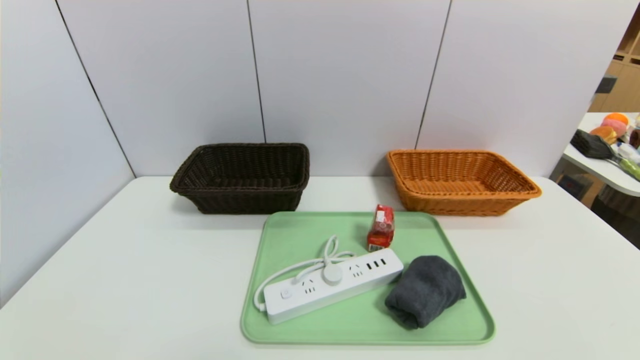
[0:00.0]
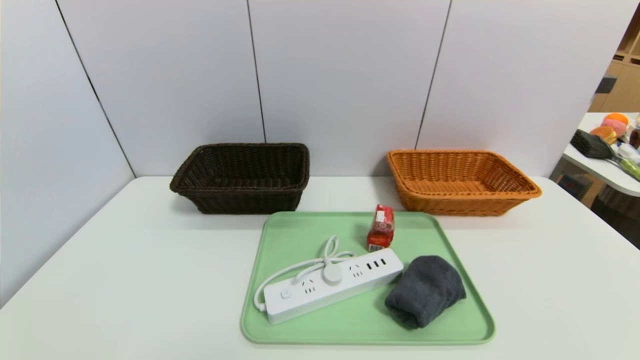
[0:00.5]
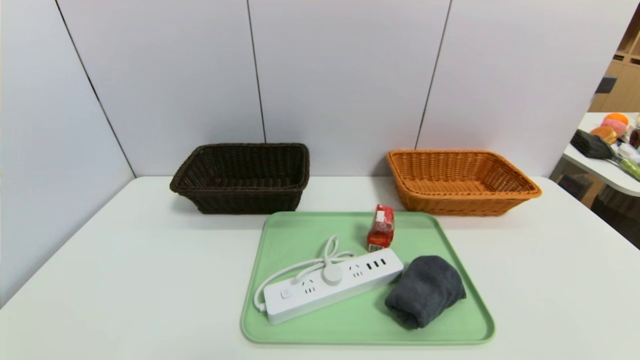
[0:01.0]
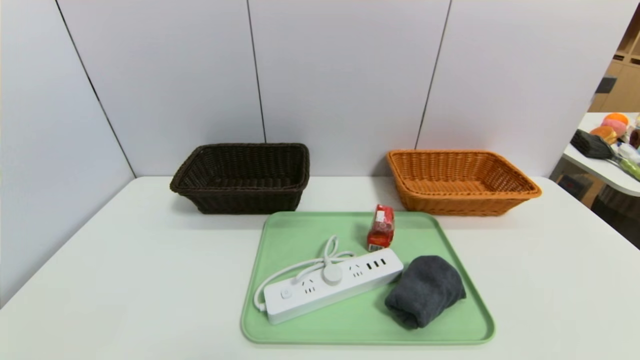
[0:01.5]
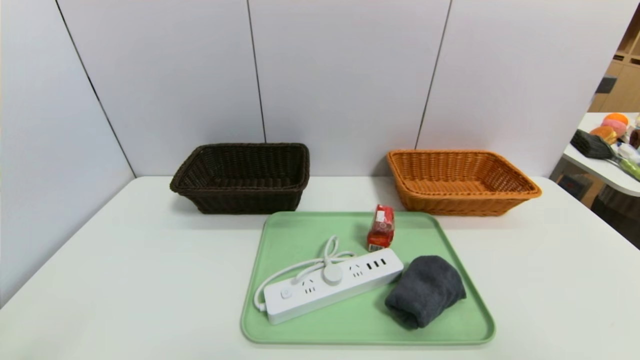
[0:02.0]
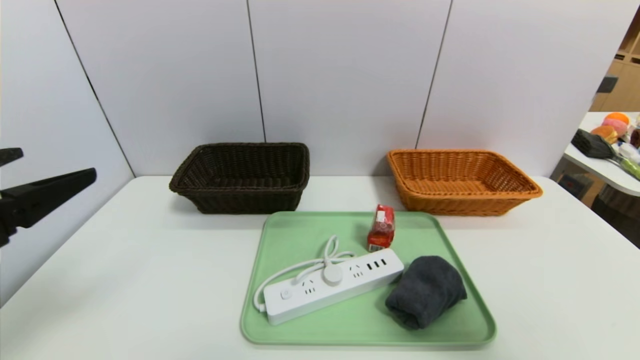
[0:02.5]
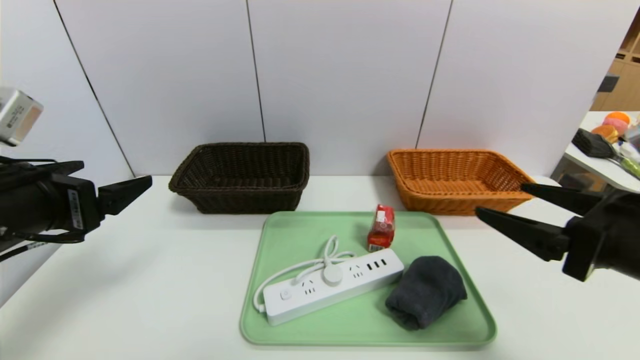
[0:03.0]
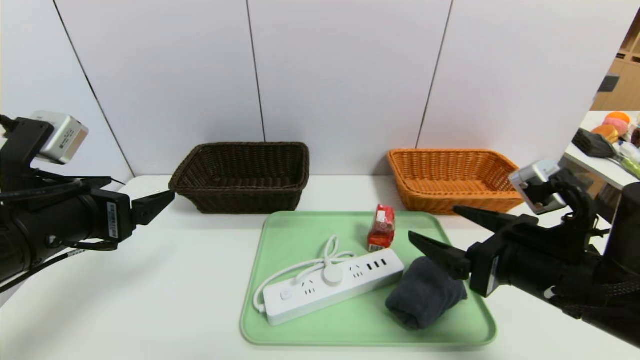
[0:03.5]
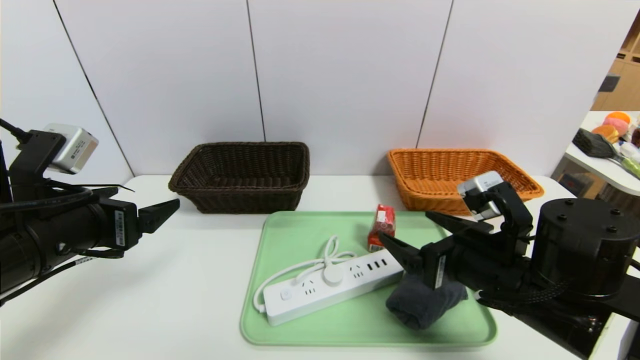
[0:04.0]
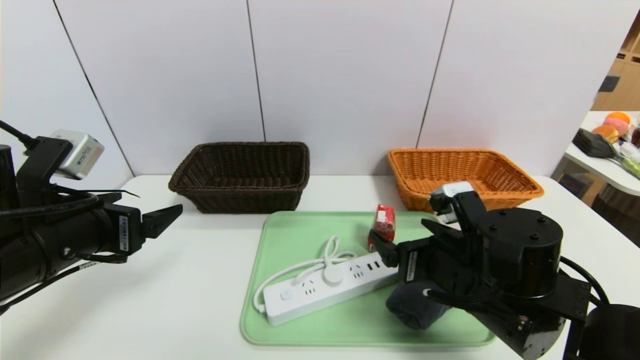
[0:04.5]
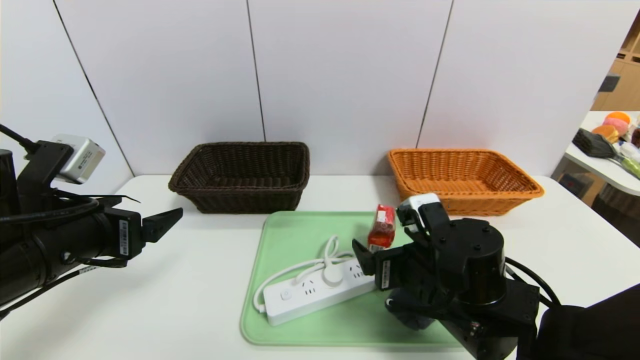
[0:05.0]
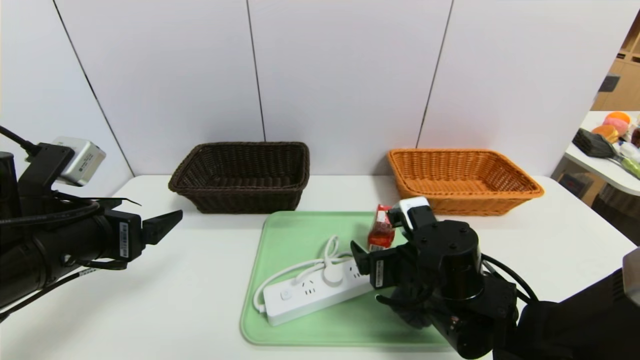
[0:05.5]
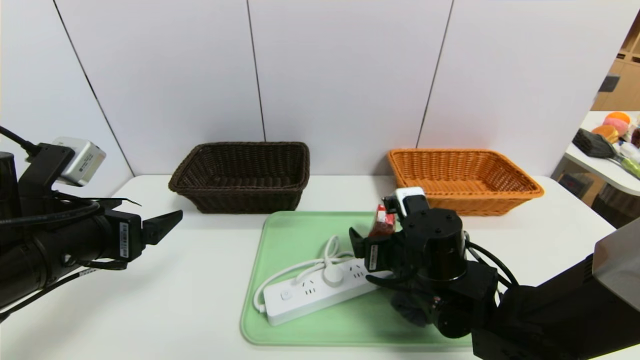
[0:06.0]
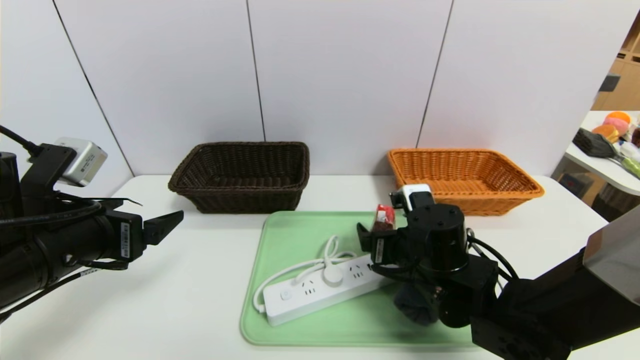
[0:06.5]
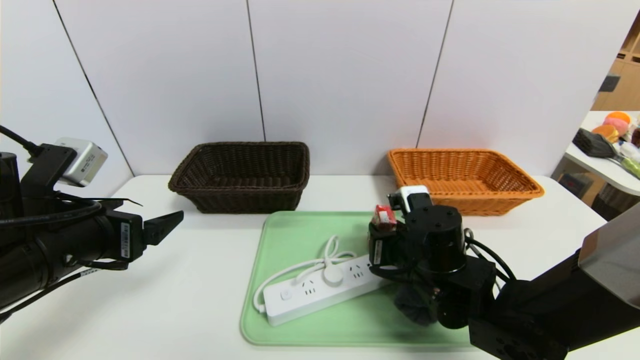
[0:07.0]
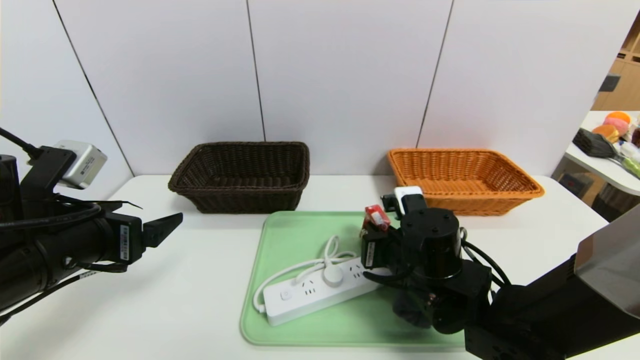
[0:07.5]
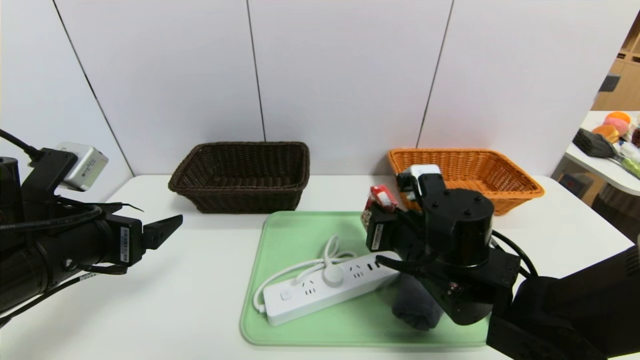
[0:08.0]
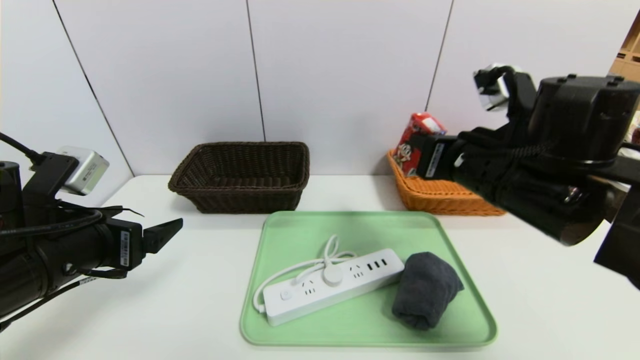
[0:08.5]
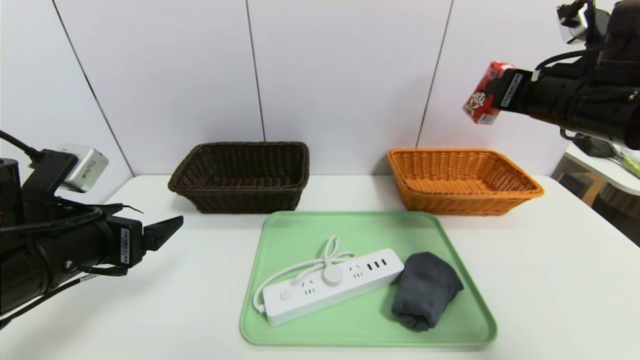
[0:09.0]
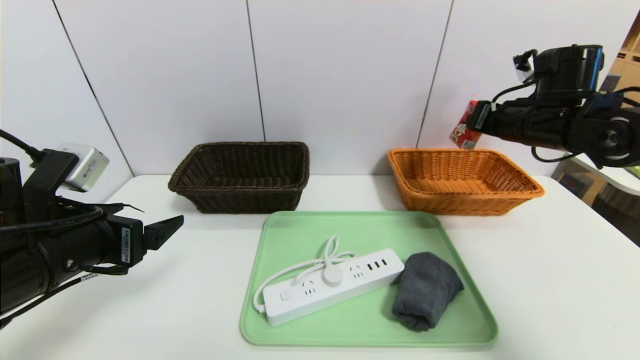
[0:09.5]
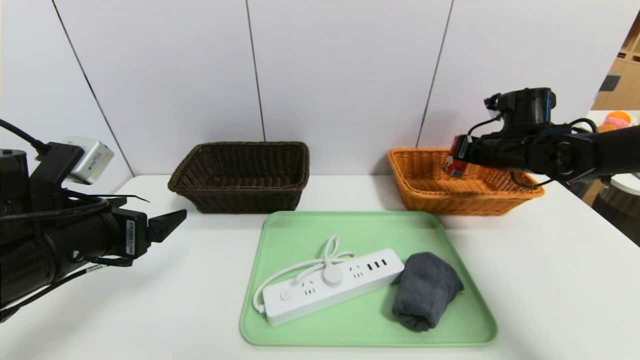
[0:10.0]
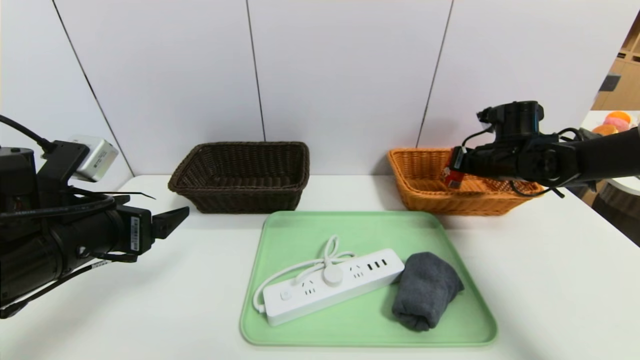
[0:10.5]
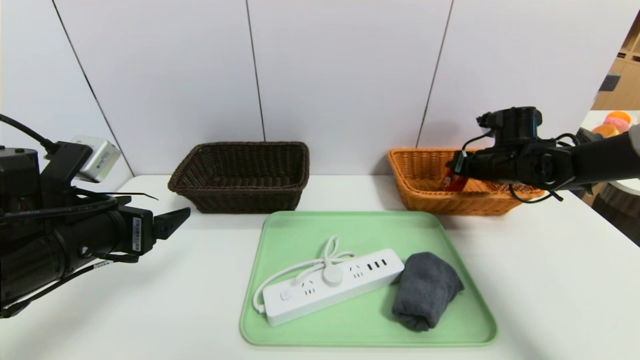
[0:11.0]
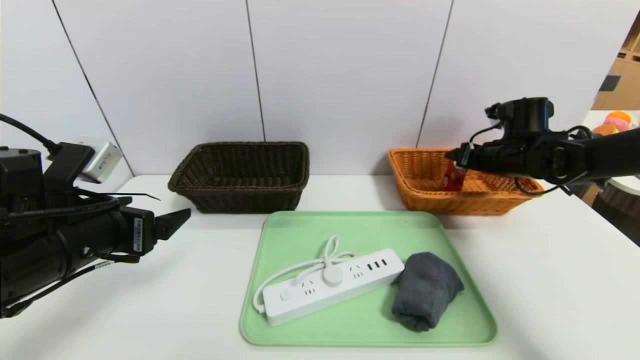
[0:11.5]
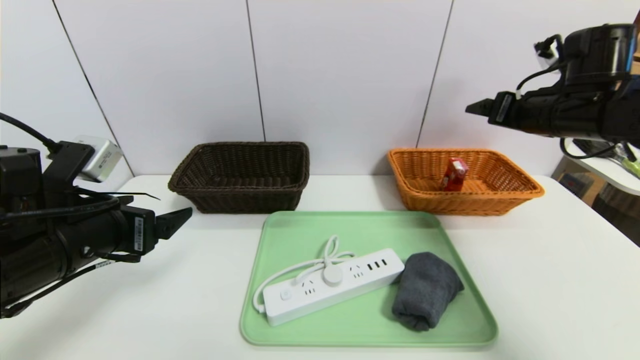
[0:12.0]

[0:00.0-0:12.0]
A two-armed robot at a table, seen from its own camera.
Task of the whole recording: place the food in the right basket with the right gripper, and place the non food items in the left basket with the left gripper.
Step, 0:00.0 to 0:11.5: Grasp the milk and put it in the right basket.
0:02.0 to 0:04.0: The right gripper moves forward, downward and to the left, approximately 30 cm. Meanwhile the left gripper shifts some 20 cm forward.
0:04.0 to 0:06.0: The right gripper travels to the left, forward and downward by about 10 cm.
0:06.0 to 0:08.0: The right gripper closes.
0:08.0 to 0:10.0: The right gripper moves to the right and forward, about 25 cm.
0:10.0 to 0:12.0: The right gripper is displaced upward and backward by approximately 10 cm, and opens.

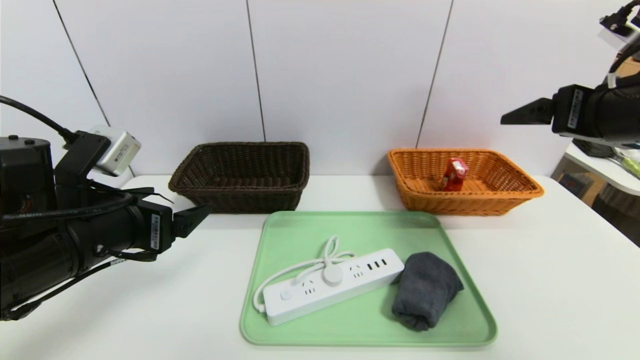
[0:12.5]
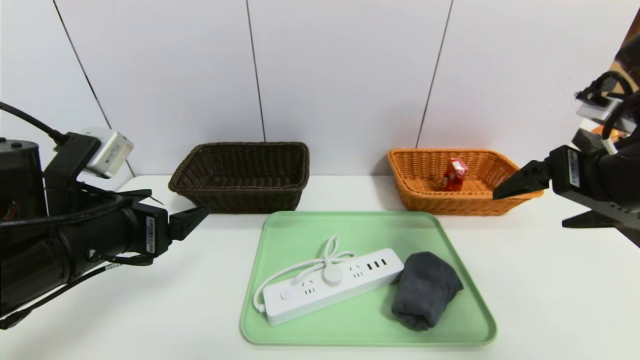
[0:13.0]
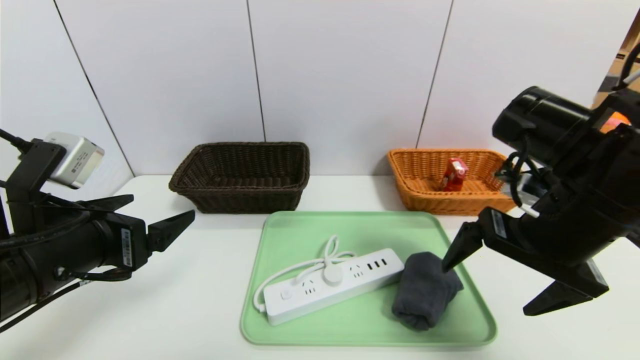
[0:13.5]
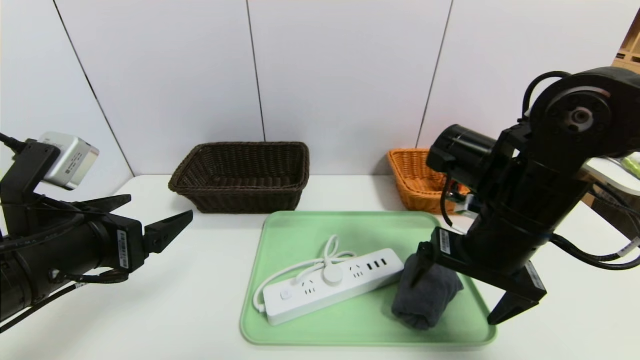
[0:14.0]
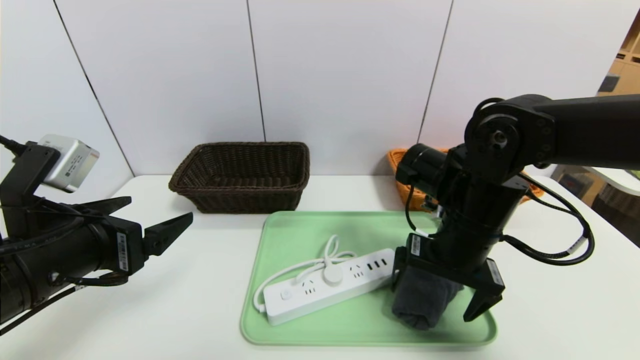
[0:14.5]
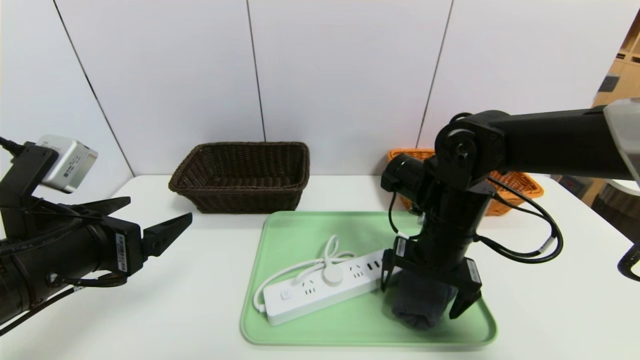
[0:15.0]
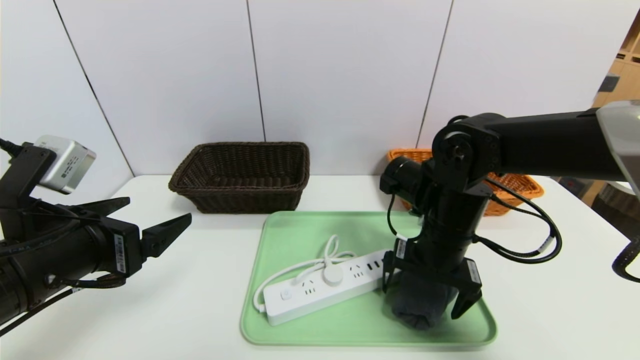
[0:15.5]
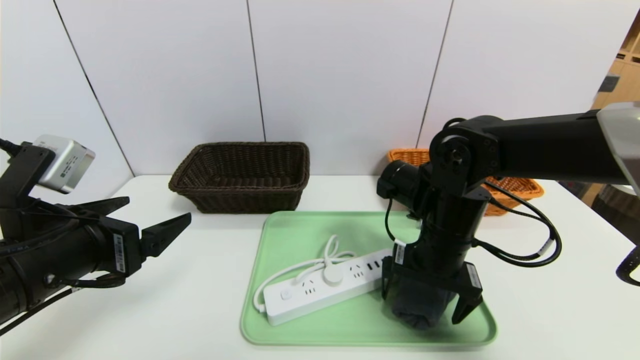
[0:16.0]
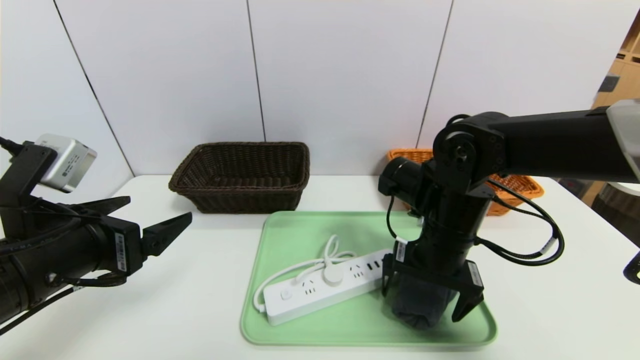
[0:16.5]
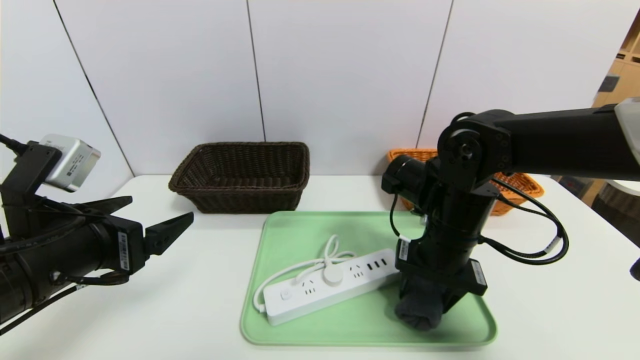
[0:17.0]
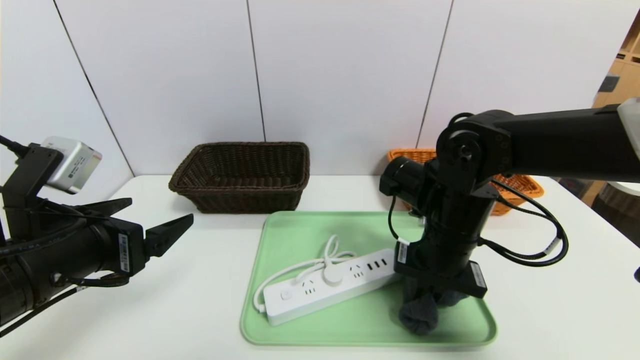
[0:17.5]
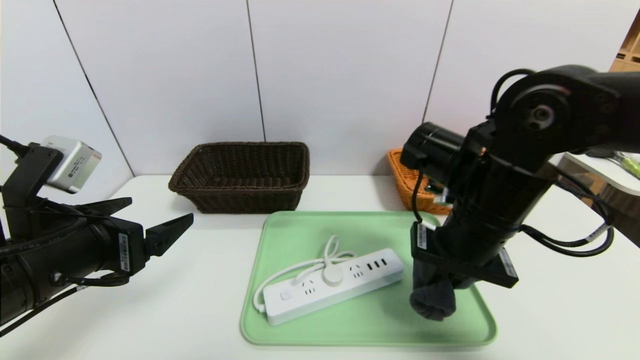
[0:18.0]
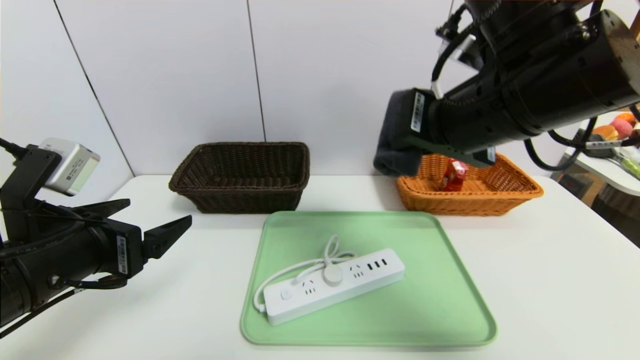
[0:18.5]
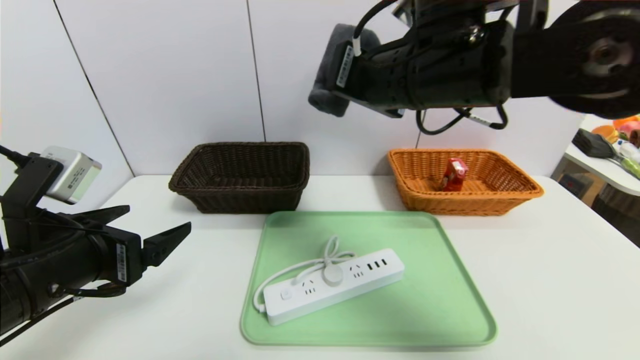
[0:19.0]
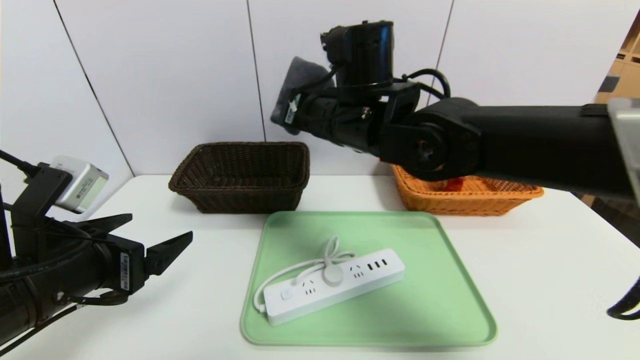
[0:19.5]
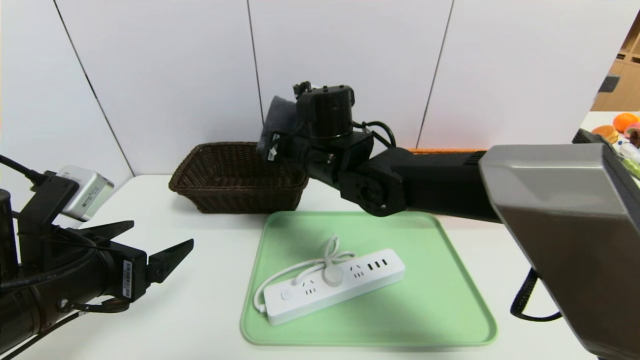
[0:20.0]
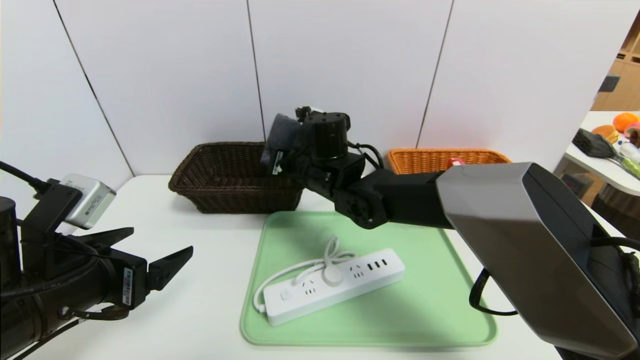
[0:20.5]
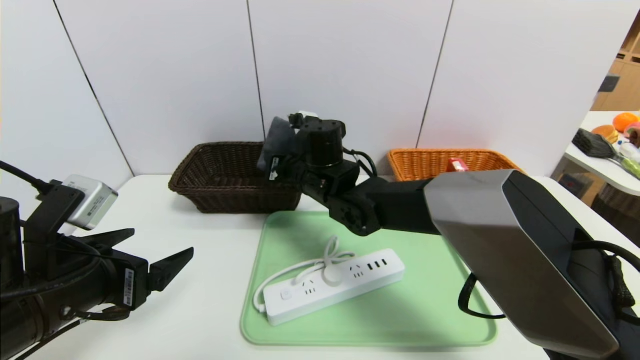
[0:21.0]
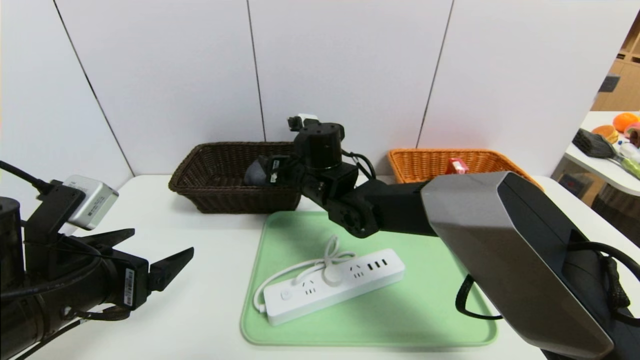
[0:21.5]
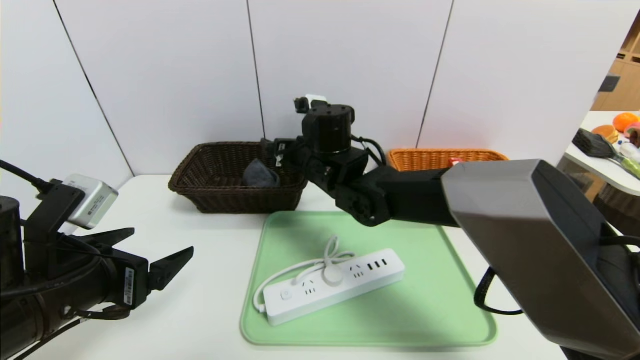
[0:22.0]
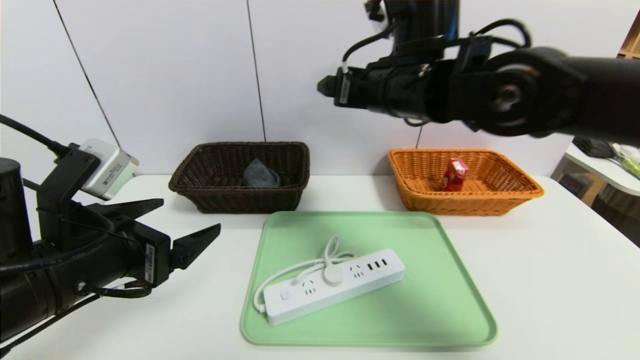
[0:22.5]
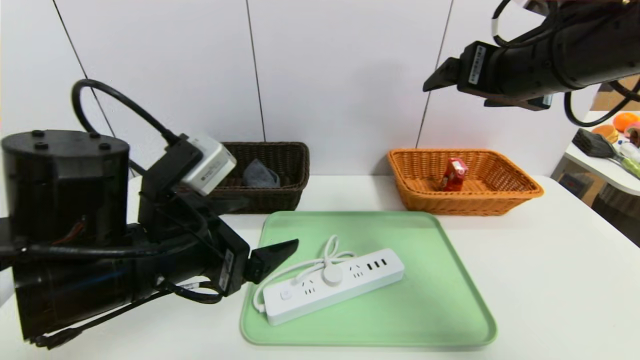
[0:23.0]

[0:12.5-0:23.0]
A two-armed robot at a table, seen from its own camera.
Task of the whole recording: place the food in the right basket with the right gripper, and place the non food items in the left basket with the left gripper.
0:12.5 to 0:14.5: The right gripper shifts roughly 20 cm to the left and downward.
0:14.5 to 0:16.5: The grippers move only a little.
0:16.5 to 0:19.0: The right gripper is displaced upward by approximately 20 cm, and closes its fingers.
0:19.0 to 0:21.0: The right gripper moves downward, forward and to the left, some 25 cm.
0:21.0 to 0:23.0: The right gripper shifts some 30 cm to the right, upward and backward, and opens its fingers. The left gripper moves to the right, approximately 10 cm.
